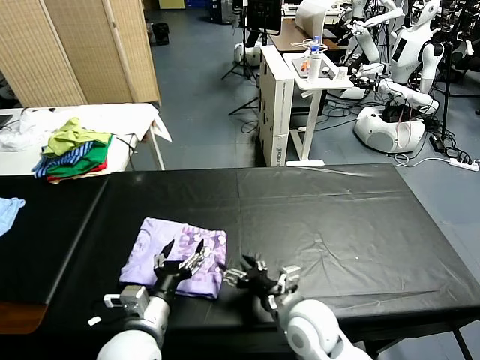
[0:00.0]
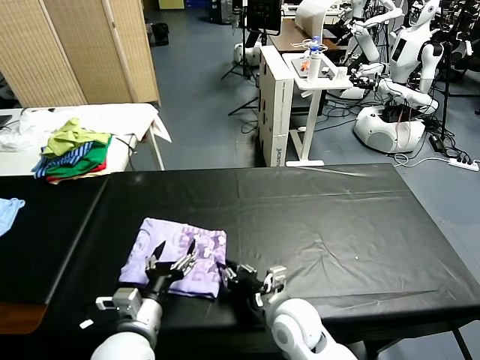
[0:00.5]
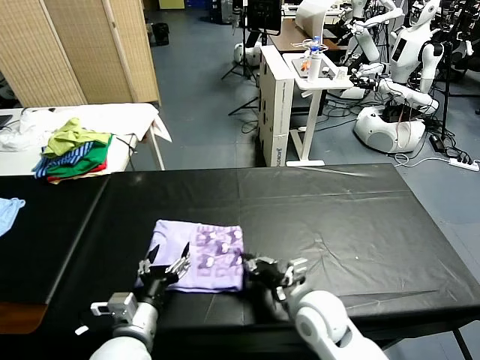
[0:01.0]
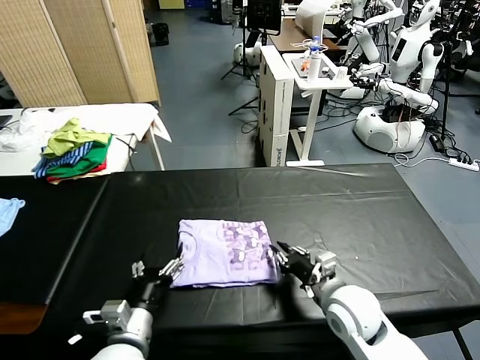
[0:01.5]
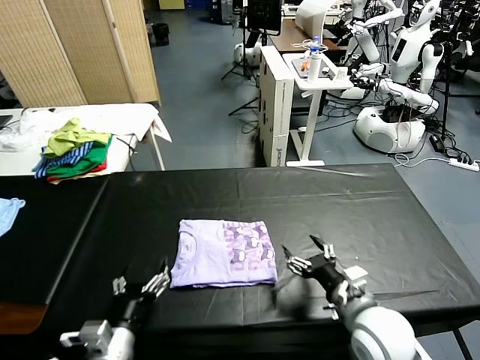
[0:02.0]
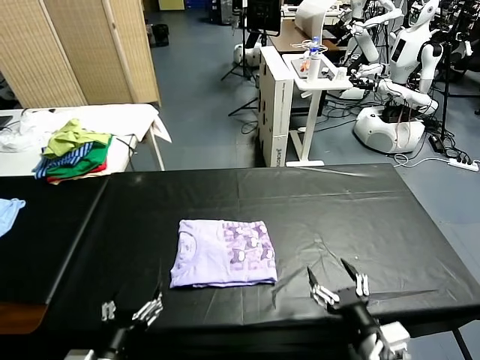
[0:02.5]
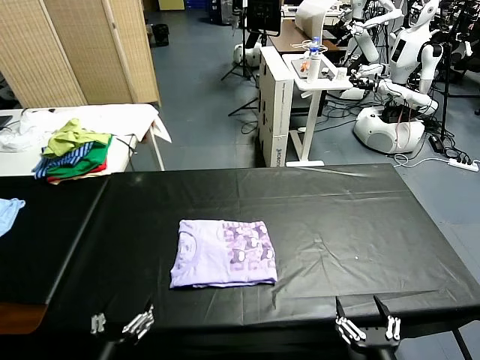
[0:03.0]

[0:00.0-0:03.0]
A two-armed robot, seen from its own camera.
Task of the whole recording: fold and organize the clothes.
Step, 0:00.0 to 0:01.5: Drag the clothes to the center of the table.
0:00.0 to 0:01.5: The right gripper shifts approximately 10 cm to the right, and closes its fingers.
0:01.5 to 0:03.0: The left gripper is displaced backward by roughly 10 cm. Meanwhile the right gripper heads backward, covering approximately 20 cm, and opens up.
